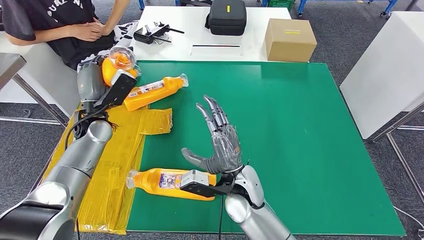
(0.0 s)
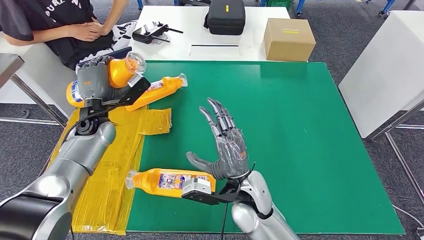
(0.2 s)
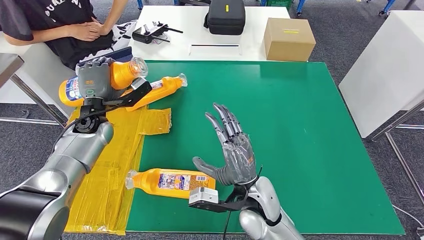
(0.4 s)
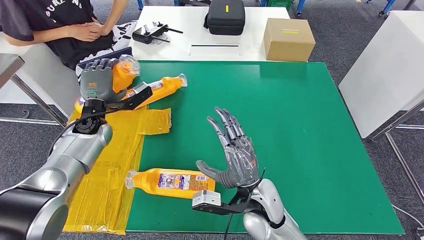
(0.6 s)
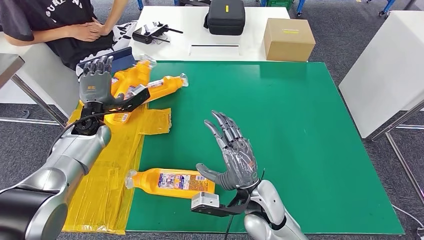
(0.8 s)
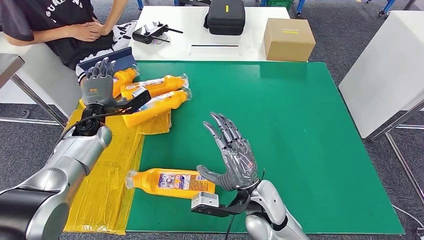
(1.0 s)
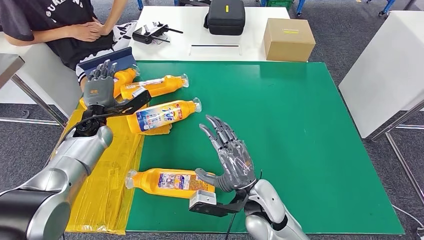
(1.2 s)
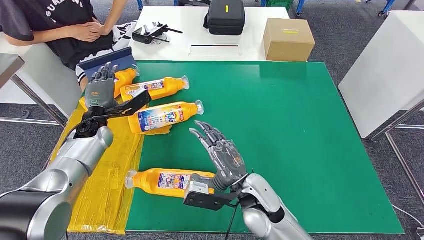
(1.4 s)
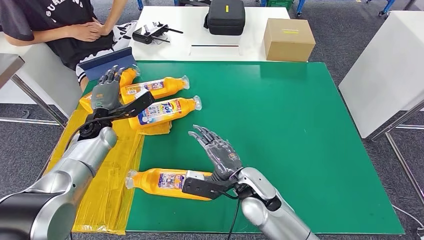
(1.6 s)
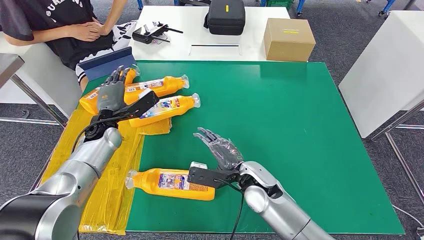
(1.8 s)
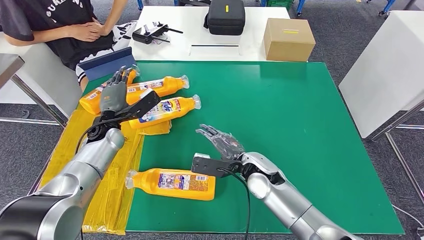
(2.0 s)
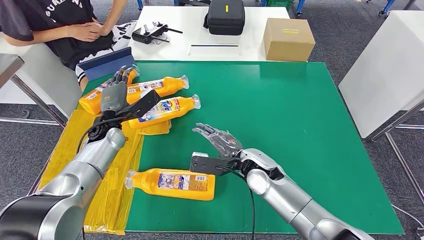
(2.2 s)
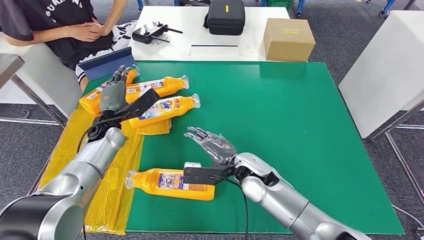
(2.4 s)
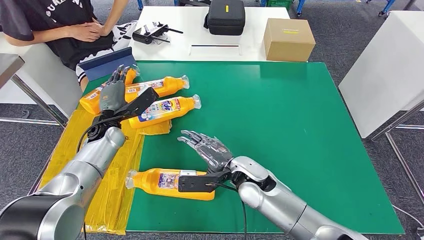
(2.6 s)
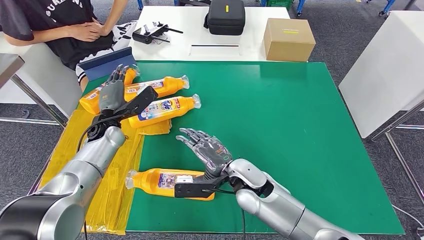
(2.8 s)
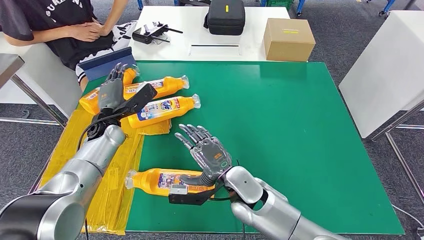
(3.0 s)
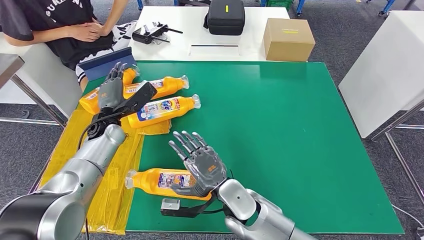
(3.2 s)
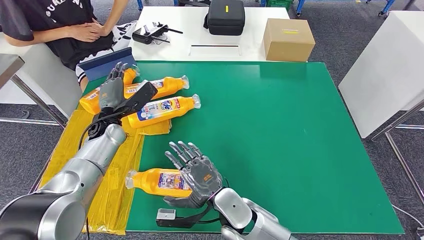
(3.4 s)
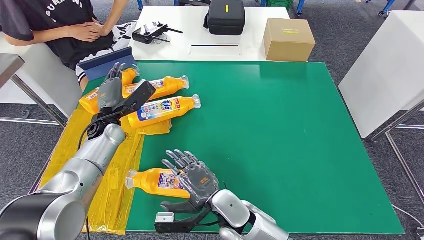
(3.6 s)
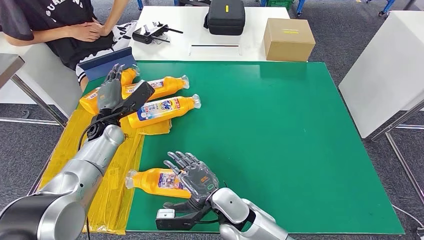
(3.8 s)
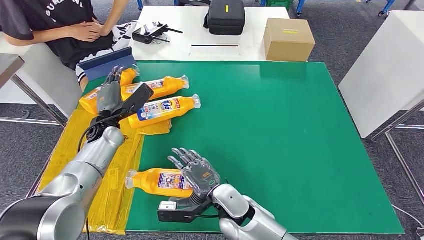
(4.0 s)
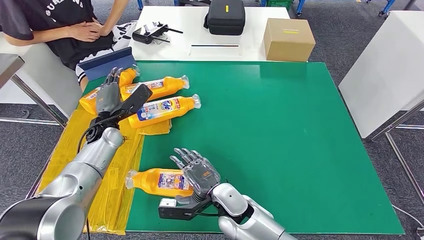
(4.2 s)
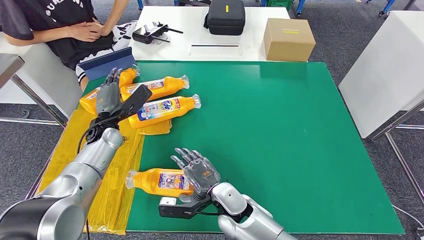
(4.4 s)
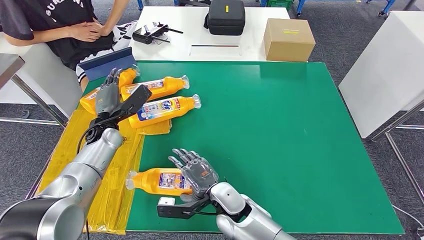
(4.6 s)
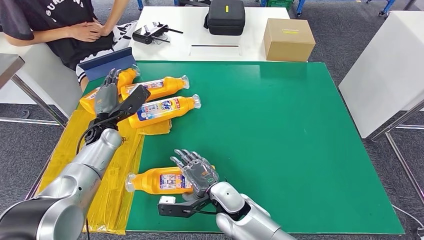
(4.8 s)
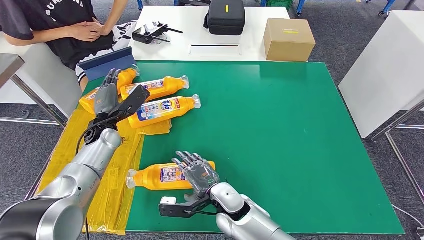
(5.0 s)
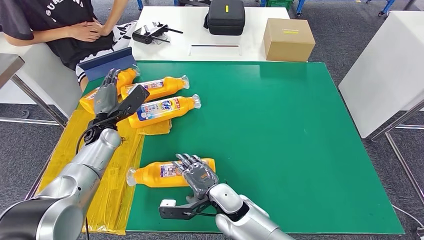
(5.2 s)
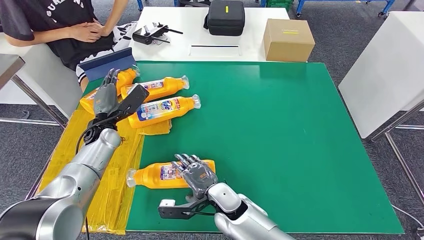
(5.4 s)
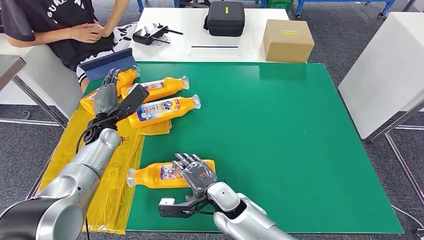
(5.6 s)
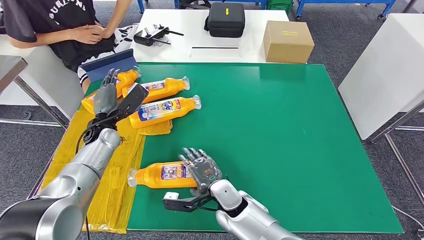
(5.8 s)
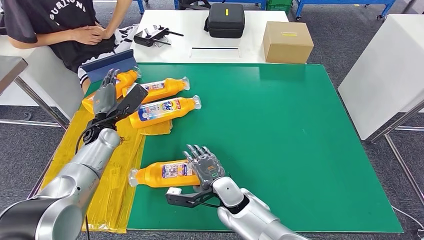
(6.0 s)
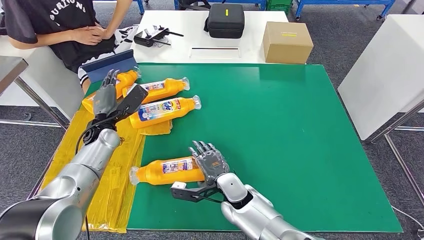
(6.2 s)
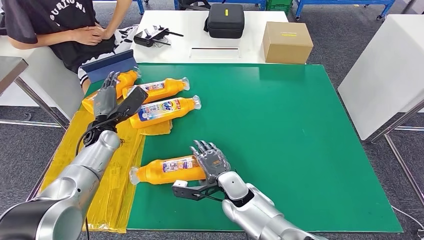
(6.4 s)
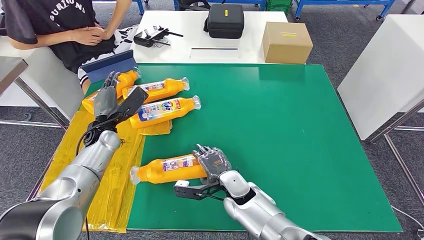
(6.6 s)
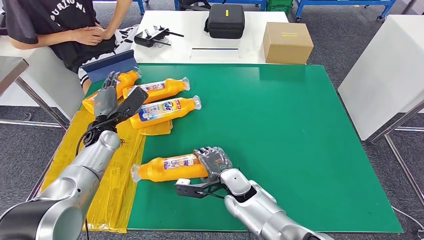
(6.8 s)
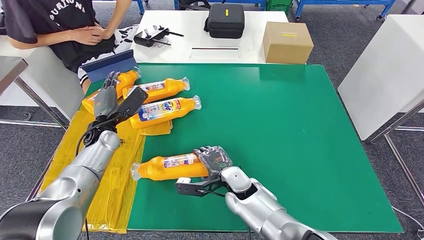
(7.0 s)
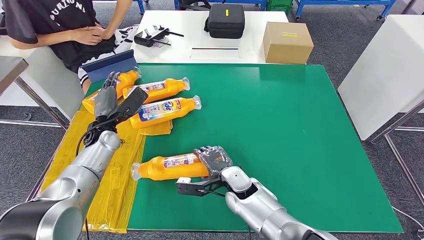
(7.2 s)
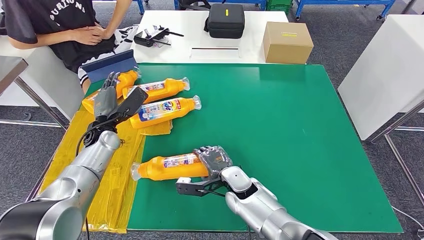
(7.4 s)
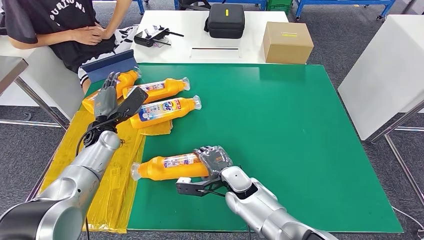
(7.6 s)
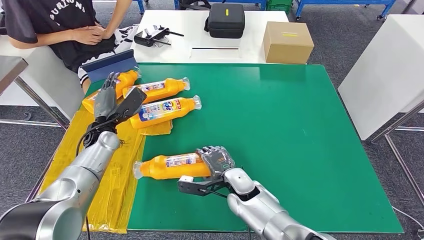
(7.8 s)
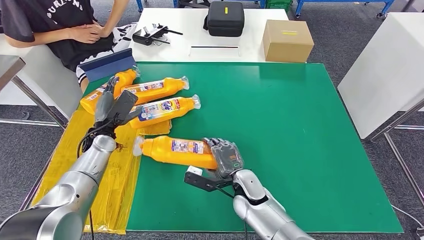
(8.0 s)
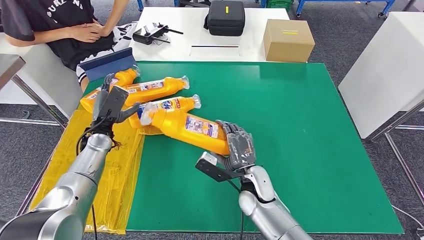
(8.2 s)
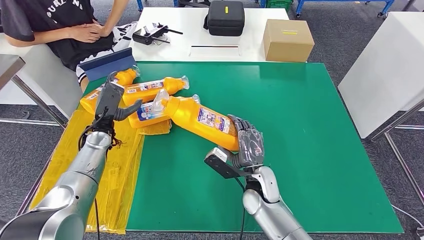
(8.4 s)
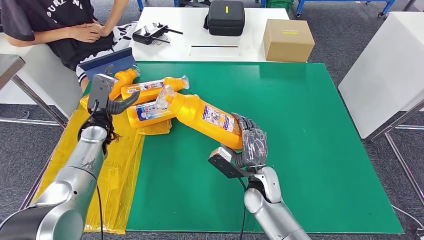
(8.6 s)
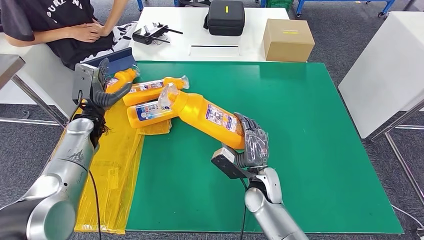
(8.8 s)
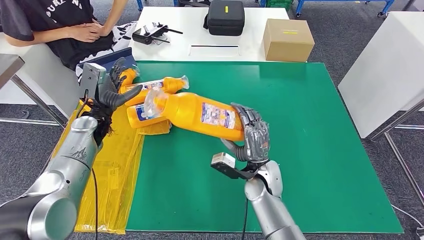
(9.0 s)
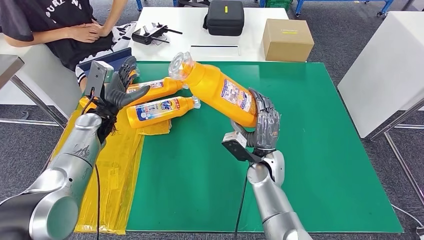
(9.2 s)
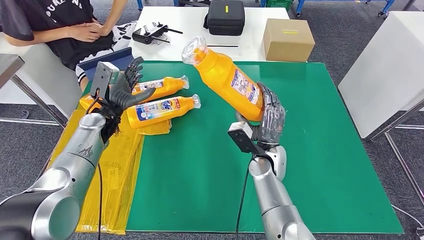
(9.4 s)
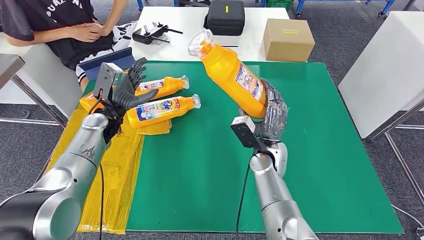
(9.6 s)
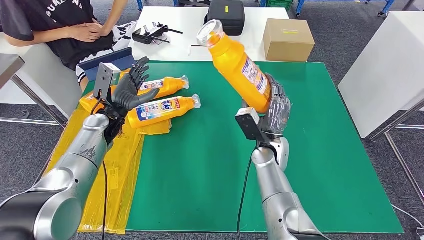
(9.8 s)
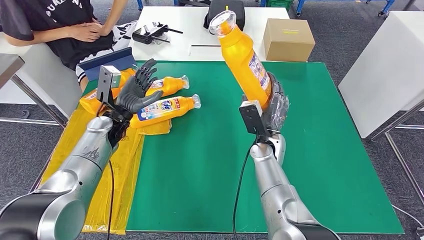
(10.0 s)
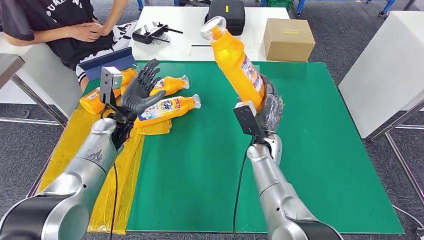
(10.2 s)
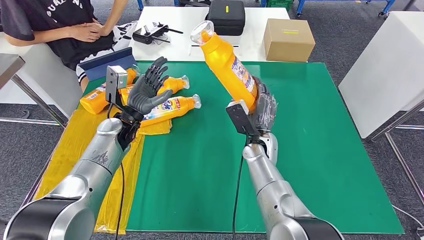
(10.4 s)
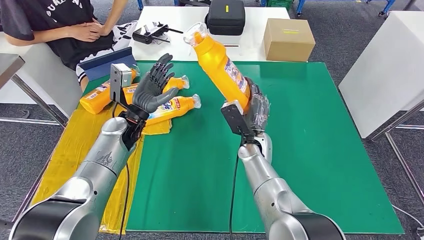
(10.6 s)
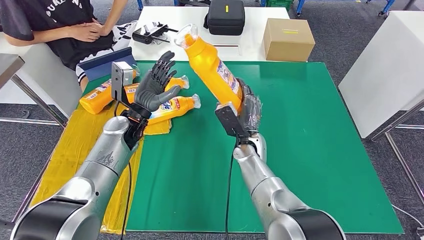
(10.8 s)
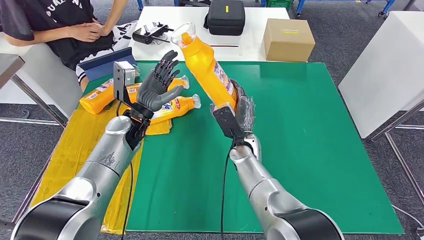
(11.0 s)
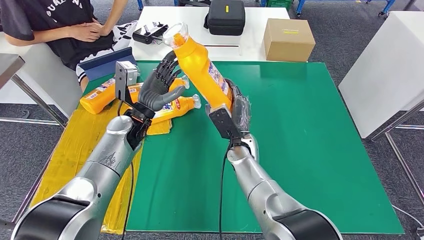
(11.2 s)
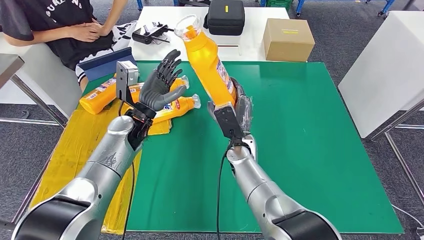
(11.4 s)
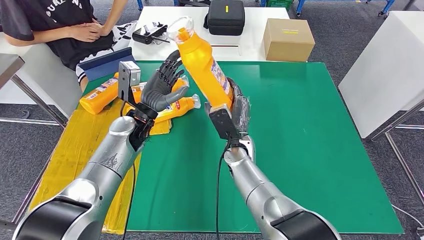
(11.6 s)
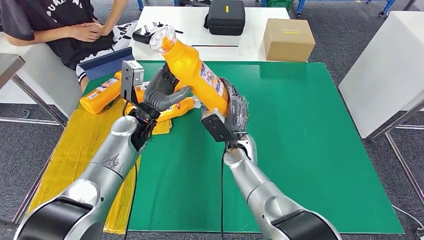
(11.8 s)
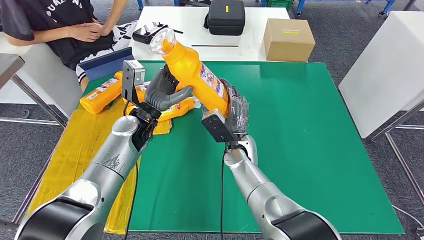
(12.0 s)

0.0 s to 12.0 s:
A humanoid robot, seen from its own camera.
Step, 2.0 to 9.4 s: Pick up the fast-moving consumer goods bottle from the table.
3.0 to 4.4 s: The right hand shifts some 5 cm downward.
4.4 to 6.0 s: The hands move only a little.
6.0 to 7.6 s: The hands stay close to where they were, moving slightly.

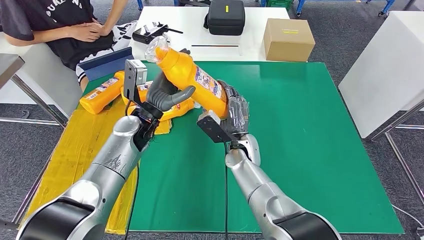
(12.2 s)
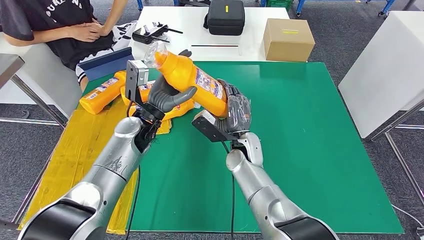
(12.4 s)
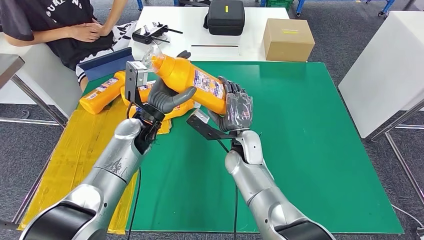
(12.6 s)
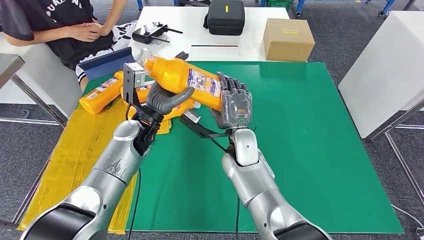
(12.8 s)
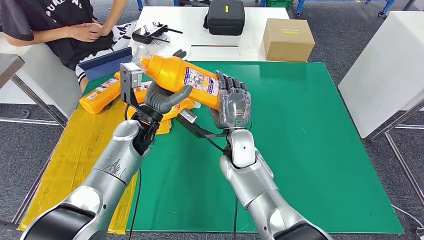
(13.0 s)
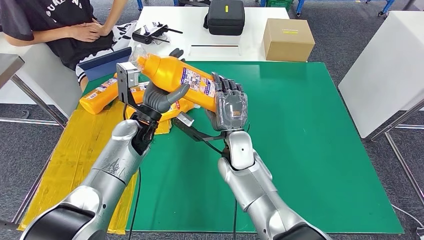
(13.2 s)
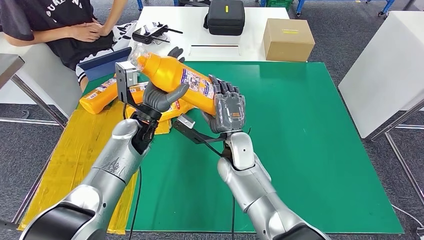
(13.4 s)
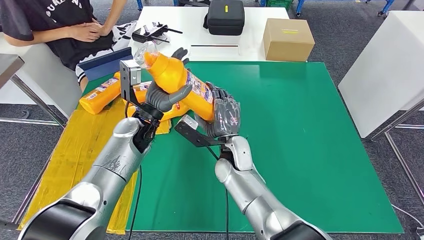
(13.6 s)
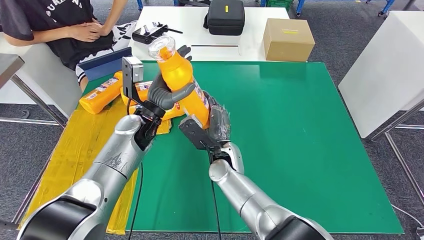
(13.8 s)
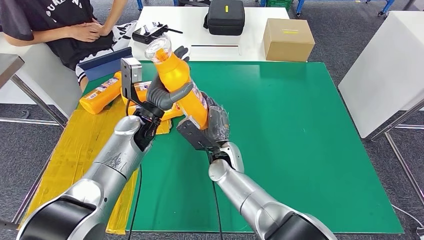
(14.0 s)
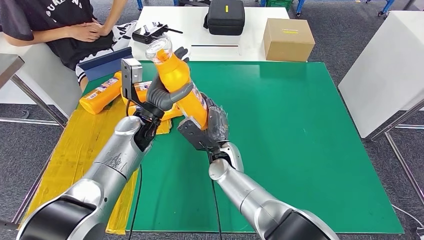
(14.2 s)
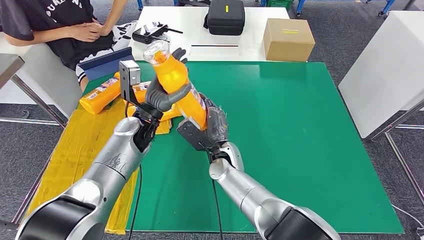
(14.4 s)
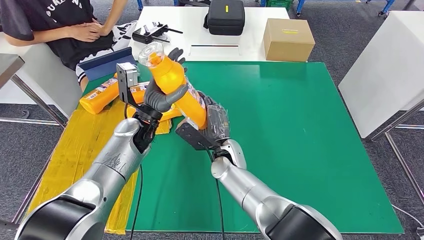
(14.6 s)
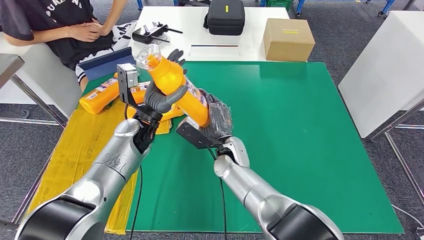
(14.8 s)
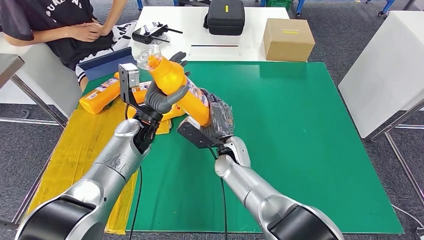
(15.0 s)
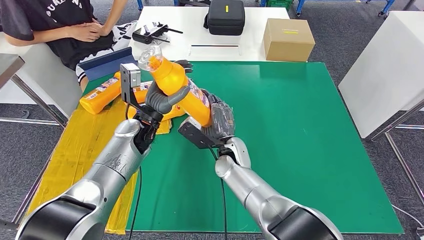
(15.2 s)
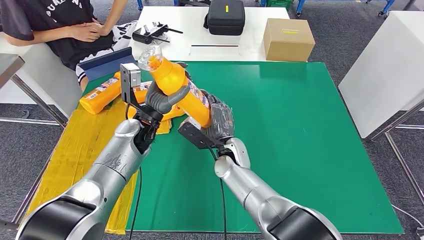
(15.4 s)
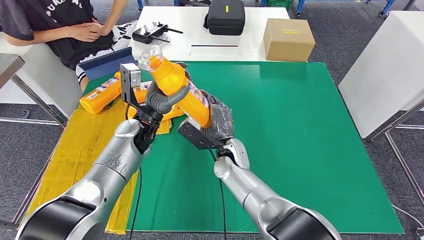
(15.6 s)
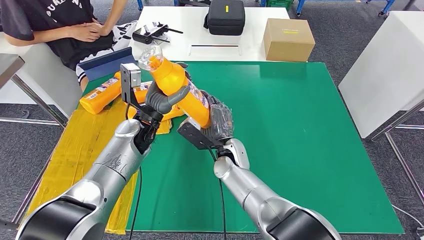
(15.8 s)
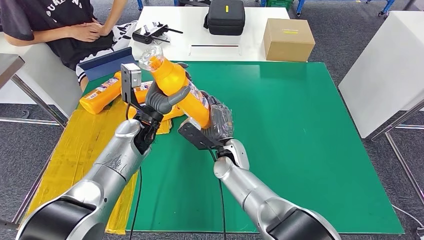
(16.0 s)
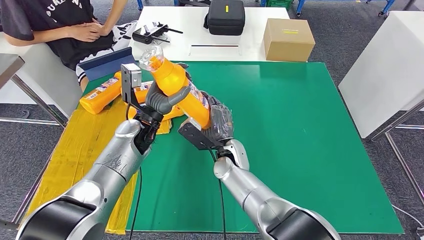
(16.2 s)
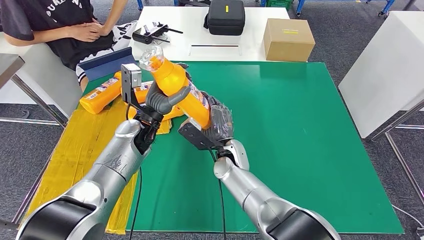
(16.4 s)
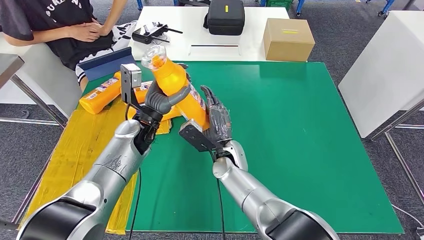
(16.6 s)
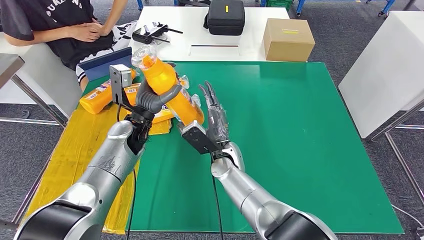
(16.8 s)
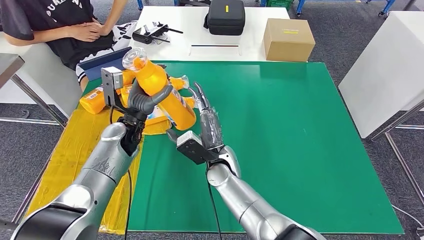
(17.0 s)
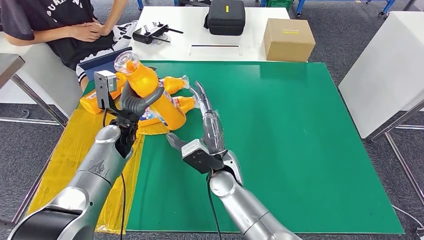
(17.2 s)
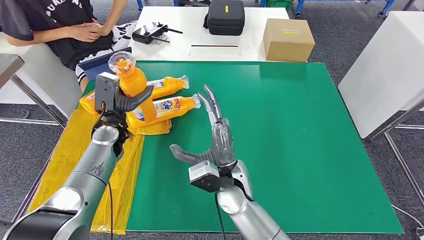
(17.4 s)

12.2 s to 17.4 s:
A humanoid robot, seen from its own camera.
12.2 to 14.0 s: The right hand moves to the left, about 5 cm.
14.0 to 15.6 s: The hands make only small movements.
